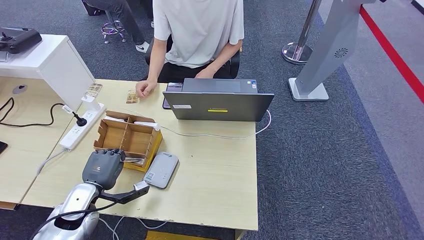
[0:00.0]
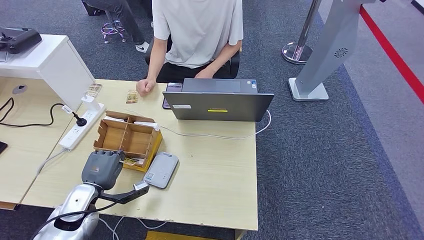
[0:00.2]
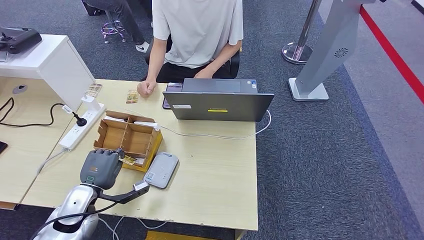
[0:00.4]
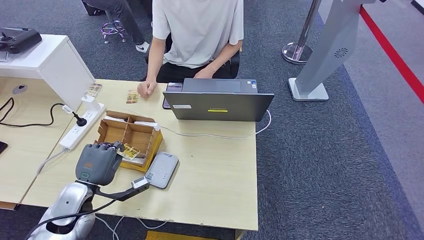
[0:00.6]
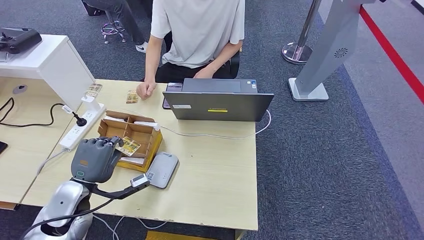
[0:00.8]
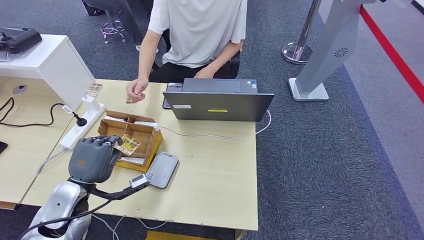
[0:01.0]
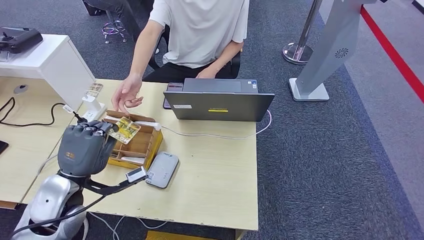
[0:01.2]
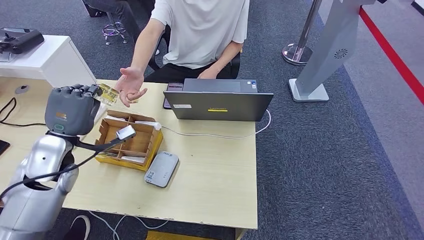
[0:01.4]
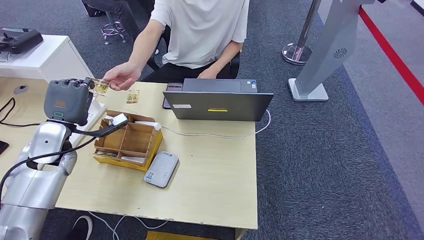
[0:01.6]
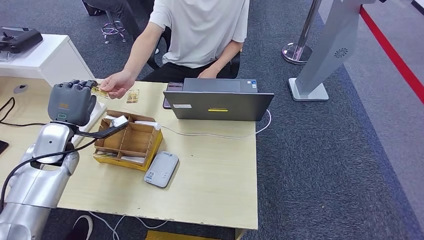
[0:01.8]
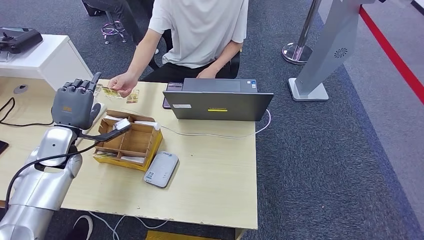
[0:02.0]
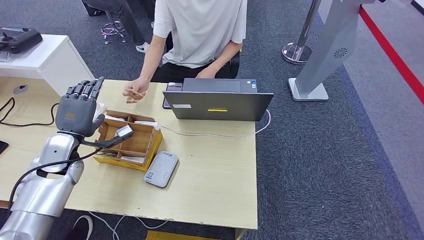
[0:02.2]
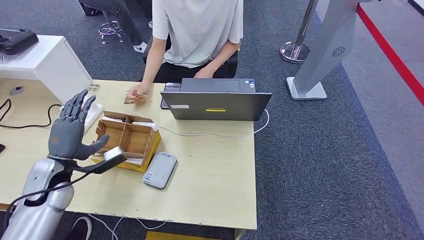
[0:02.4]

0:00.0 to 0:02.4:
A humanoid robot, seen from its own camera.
Step, 0:00.0 to 0:00.8: Pick up the room key from the key card box.
Step, 0:01.0 to 0:02.4: Hand the room key to the person.
0:00.0 to 0:01.2: The left hand heads upward, covering approximately 10 cm.

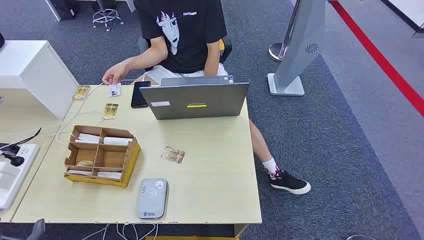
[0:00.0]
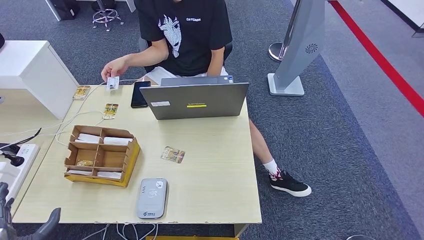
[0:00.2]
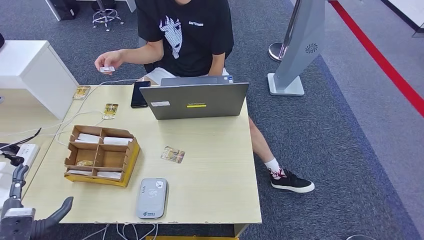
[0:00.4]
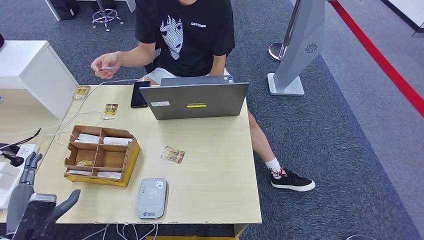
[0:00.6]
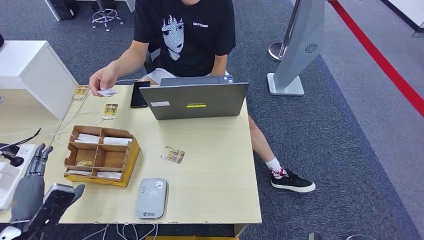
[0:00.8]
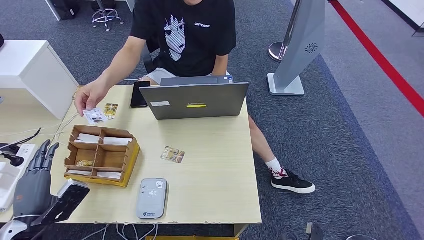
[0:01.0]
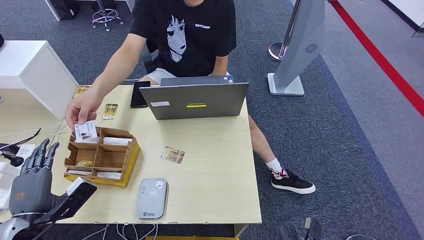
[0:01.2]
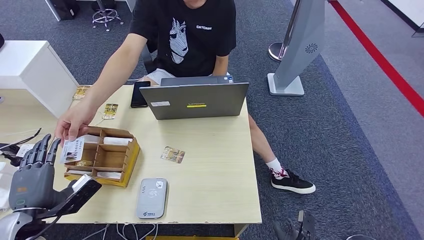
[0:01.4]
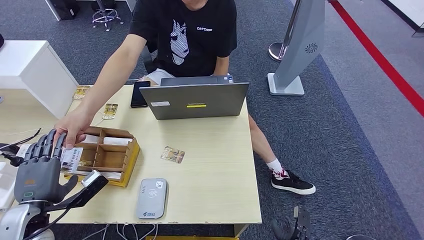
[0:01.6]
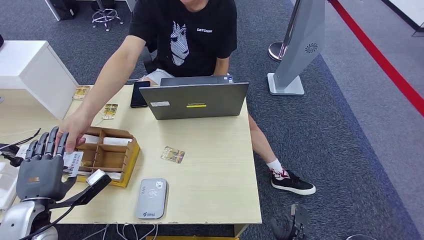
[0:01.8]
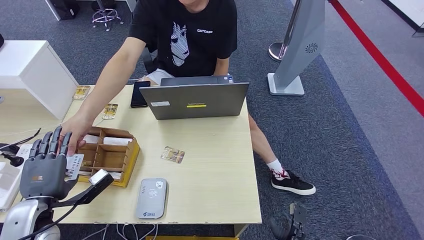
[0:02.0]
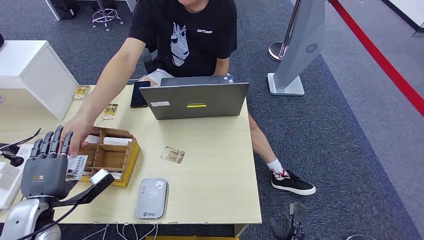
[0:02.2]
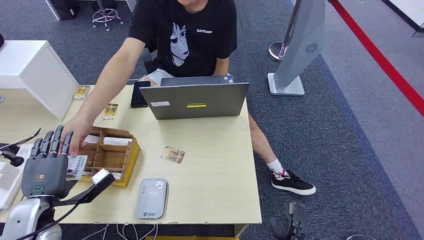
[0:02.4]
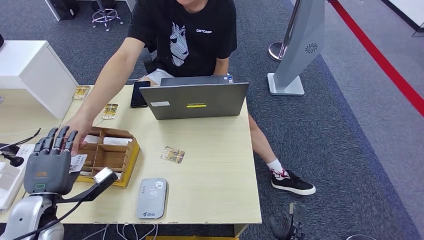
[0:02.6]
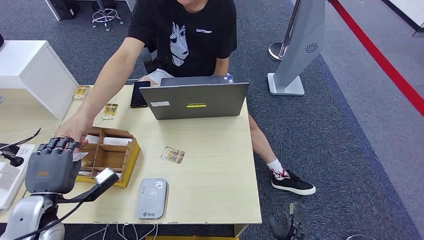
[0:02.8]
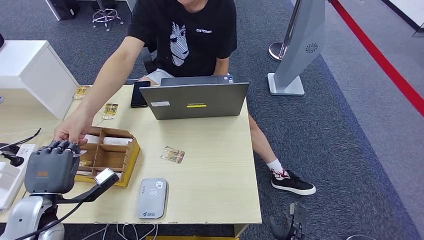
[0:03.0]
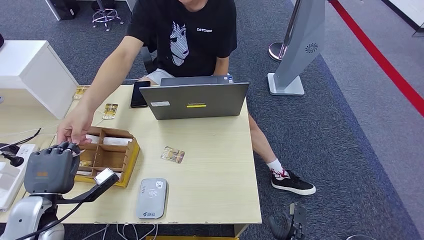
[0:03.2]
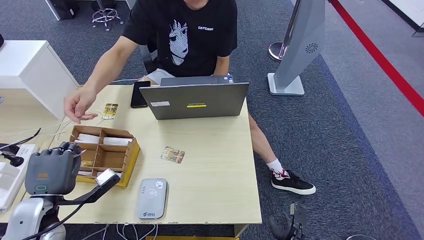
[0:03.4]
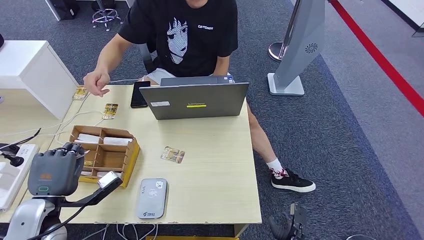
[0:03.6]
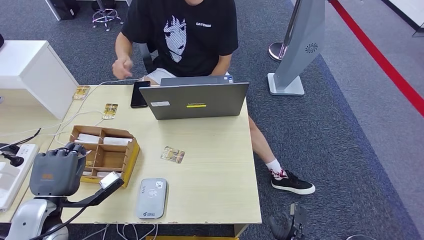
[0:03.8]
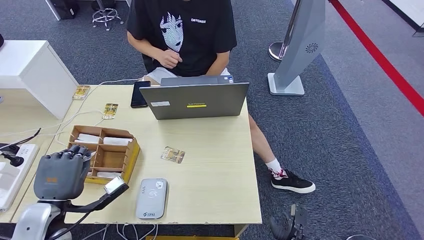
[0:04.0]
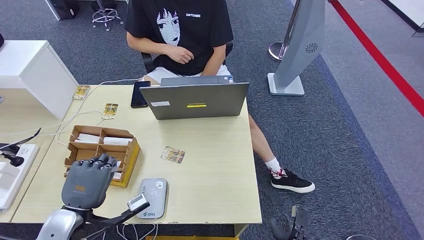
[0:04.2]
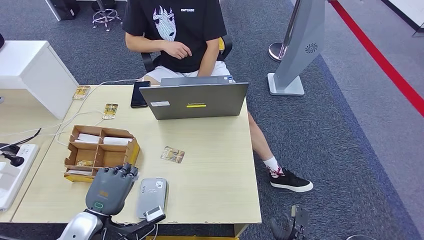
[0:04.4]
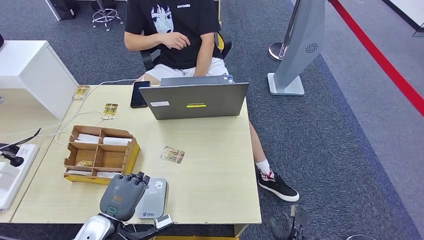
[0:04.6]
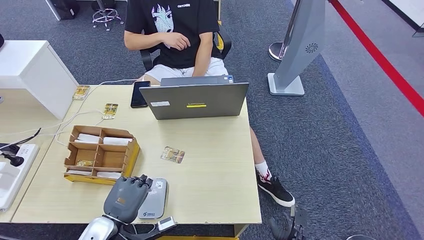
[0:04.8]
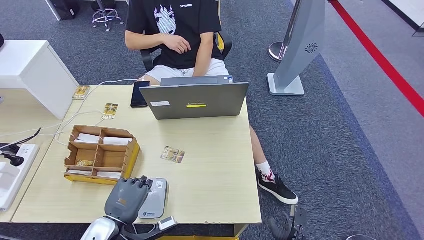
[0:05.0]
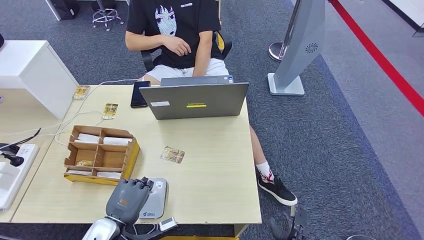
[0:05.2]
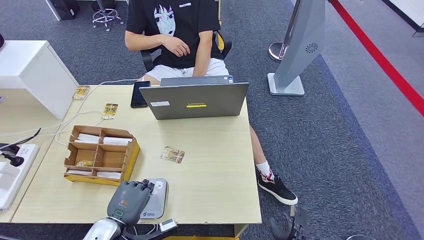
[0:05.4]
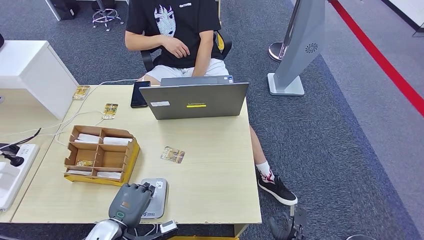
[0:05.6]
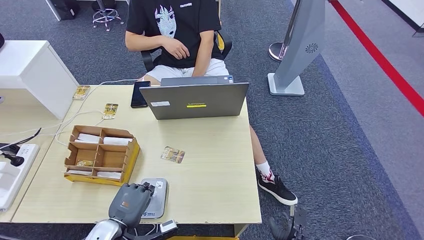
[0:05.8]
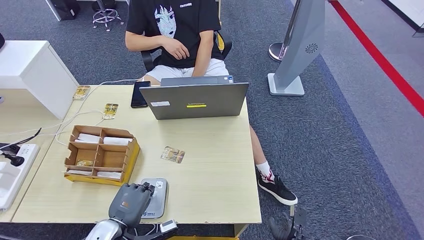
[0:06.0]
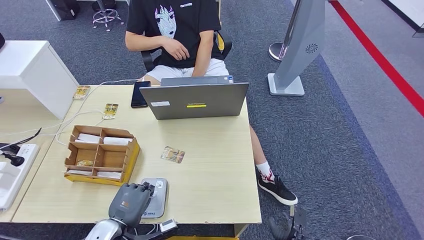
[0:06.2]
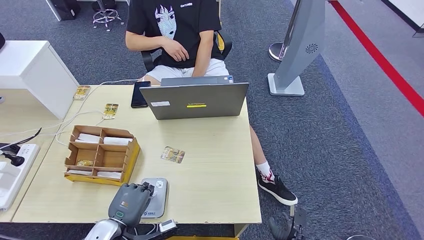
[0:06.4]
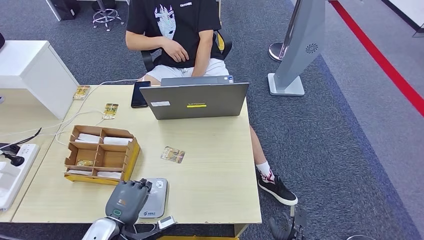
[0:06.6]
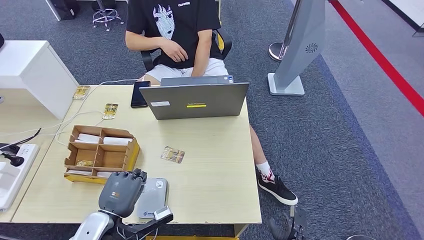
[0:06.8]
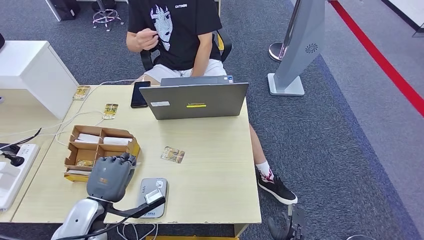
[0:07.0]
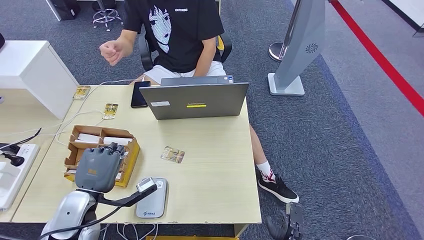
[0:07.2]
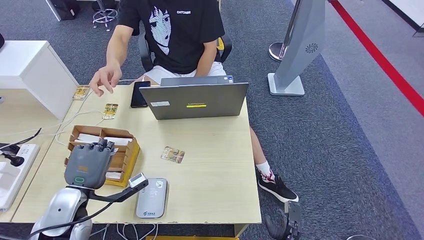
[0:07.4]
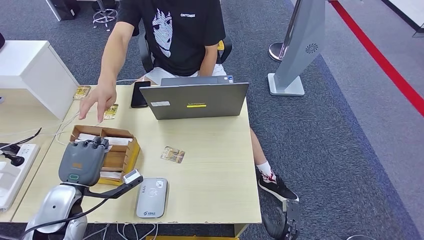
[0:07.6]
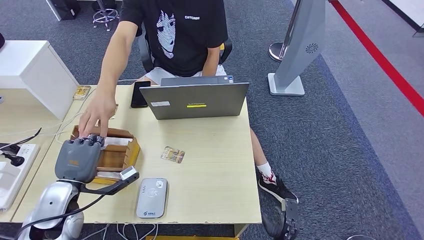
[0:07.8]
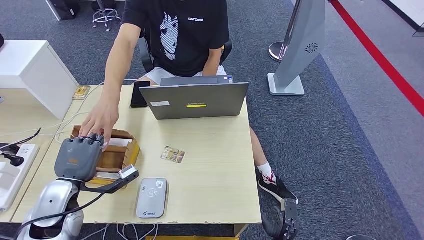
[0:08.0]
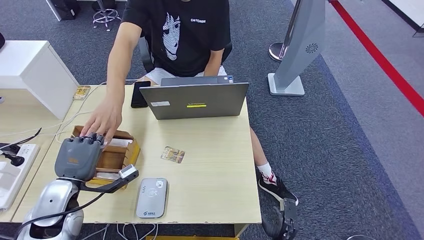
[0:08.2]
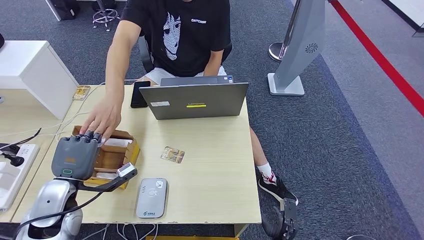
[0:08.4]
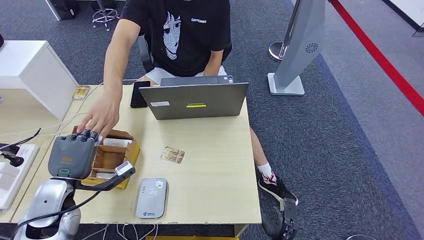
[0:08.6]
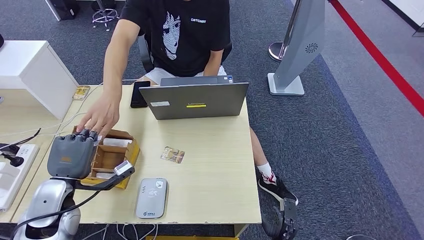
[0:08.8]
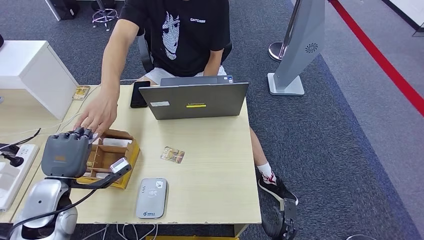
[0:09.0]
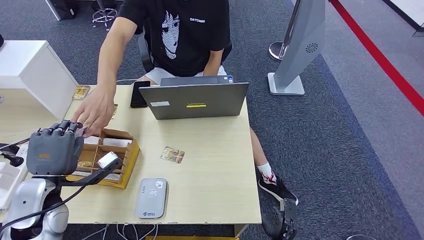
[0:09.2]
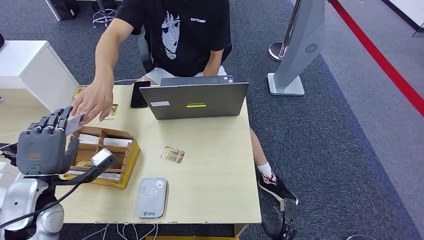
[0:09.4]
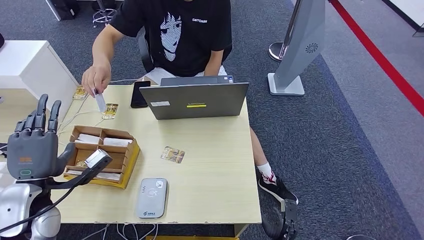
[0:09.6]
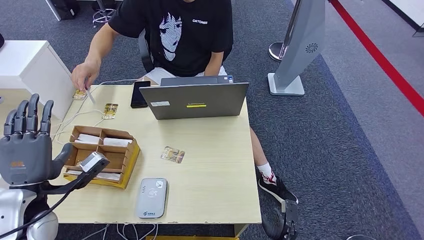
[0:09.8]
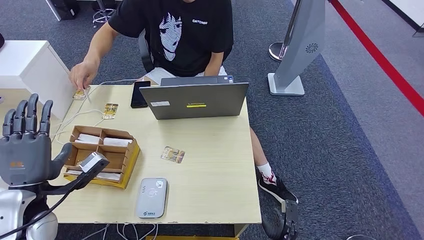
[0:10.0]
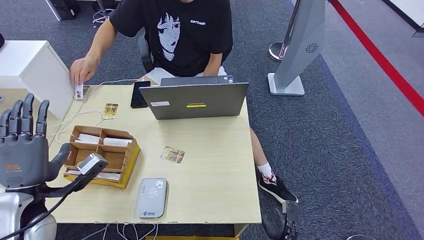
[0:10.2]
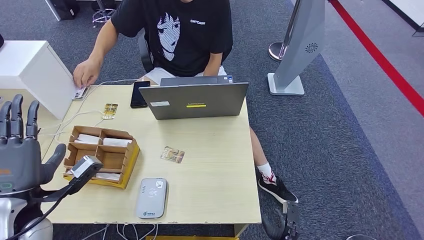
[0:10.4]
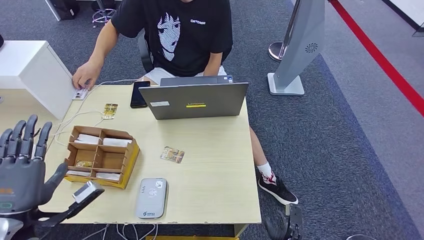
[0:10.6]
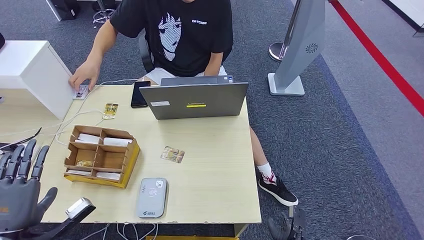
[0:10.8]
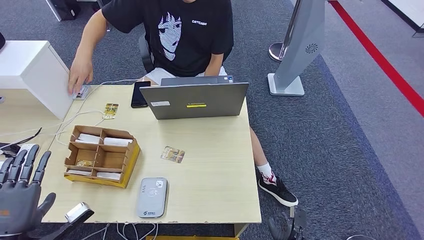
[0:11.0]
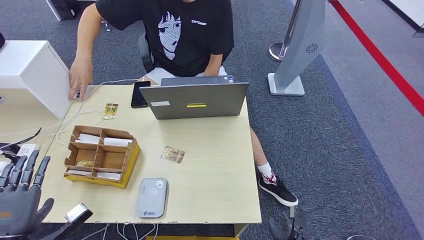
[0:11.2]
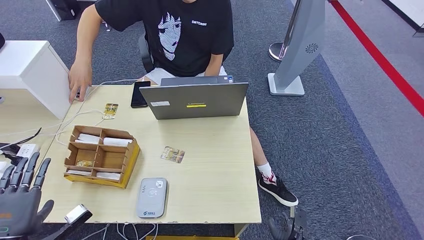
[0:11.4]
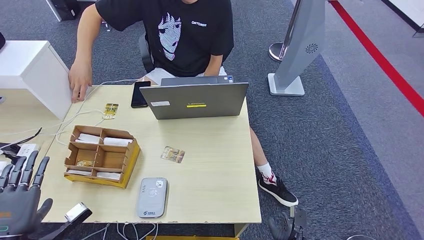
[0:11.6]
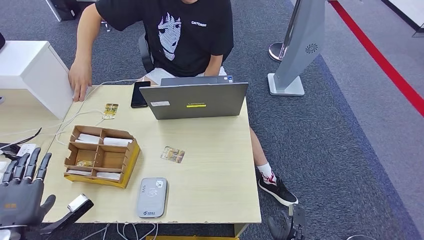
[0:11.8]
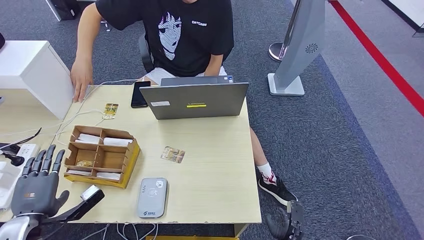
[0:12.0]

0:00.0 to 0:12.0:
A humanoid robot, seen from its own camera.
Step, 0:00.0 to 0:02.6: Take the ID card from the person's hand.
Step, 0:02.8 to 0:05.8: Place the ID card on the card reader.
Step, 0:06.0 to 0:09.0: Hand the ID card to the person.
0:01.6 to 0:03.0: The hands make only small movements.
0:03.0 to 0:04.4: The left hand shifts approximately 10 cm to the right.
0:04.4 to 0:06.0: The left hand moves downward, about 5 cm.
0:06.0 to 0:07.6: The left hand goes about 10 cm upward, to the left and forward.
0:07.6 to 0:09.0: The hands move only a little.
0:09.0 to 0:10.4: The left hand ends up approximately 5 cm from where it was.
0:10.4 to 0:12.0: The left hand is displaced downward and to the left by some 10 cm.

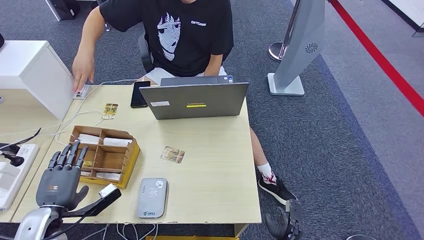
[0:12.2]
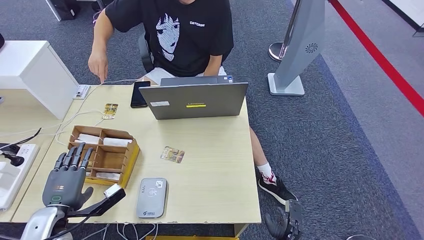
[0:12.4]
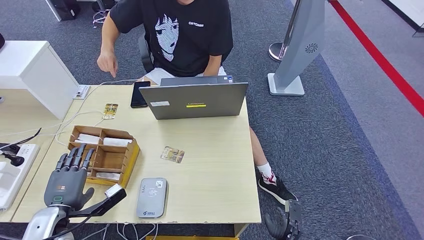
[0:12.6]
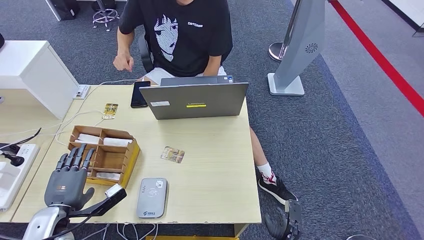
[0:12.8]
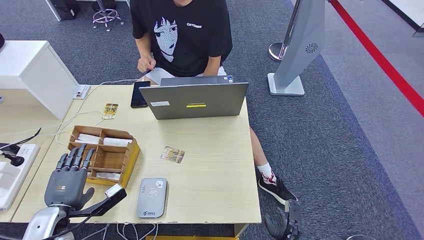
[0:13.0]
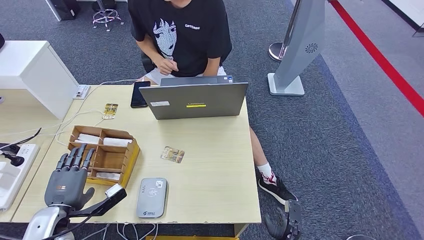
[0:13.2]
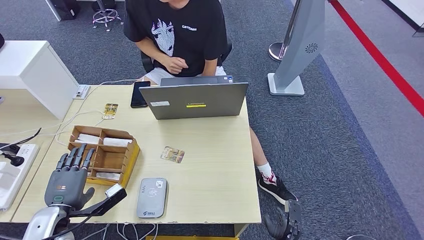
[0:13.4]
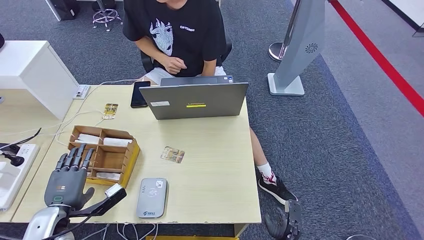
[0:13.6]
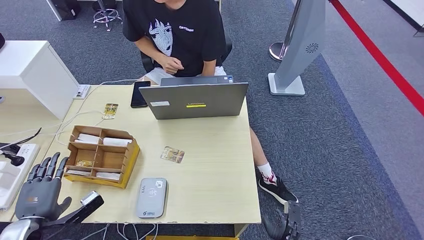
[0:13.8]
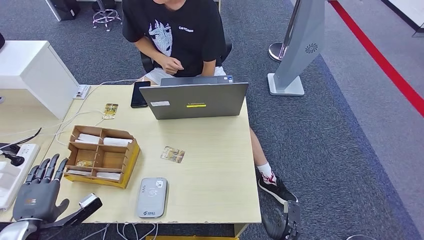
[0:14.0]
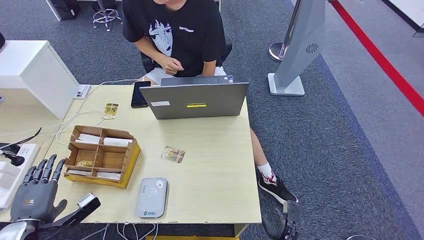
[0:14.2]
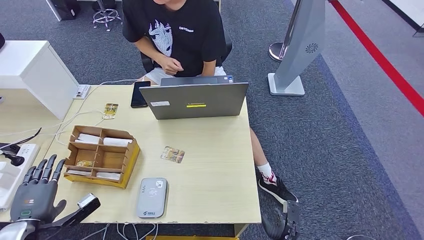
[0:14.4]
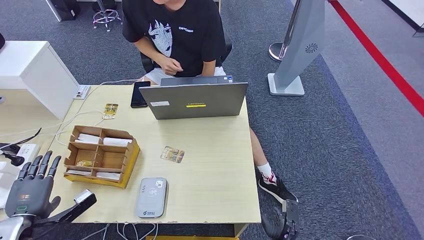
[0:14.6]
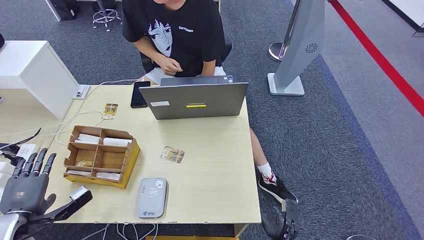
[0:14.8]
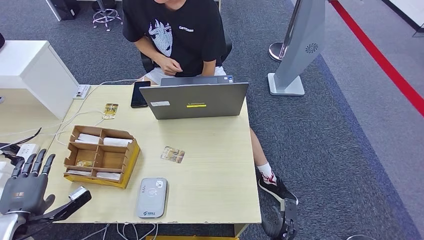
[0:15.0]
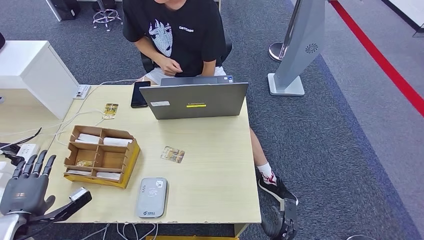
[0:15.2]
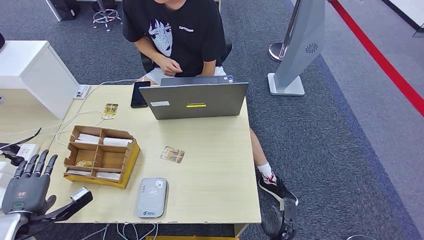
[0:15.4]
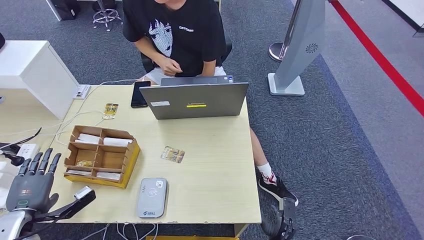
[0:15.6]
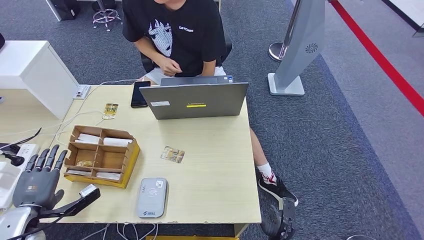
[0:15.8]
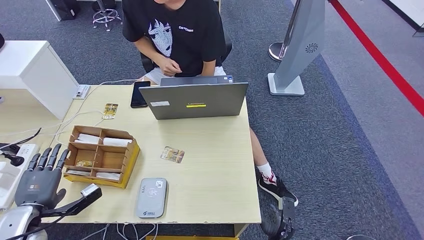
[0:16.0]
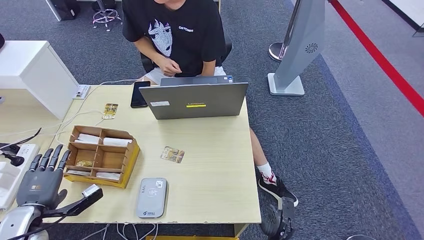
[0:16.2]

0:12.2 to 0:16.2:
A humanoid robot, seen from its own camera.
0:12.2 to 0:13.6: The hands move only a little.
0:13.6 to 0:14.8: The left hand is displaced to the left by about 10 cm.
0:14.8 to 0:16.2: The hands move only a little.
